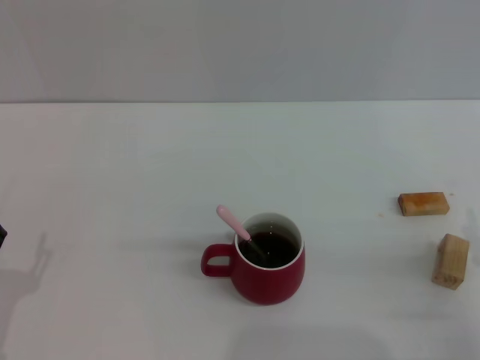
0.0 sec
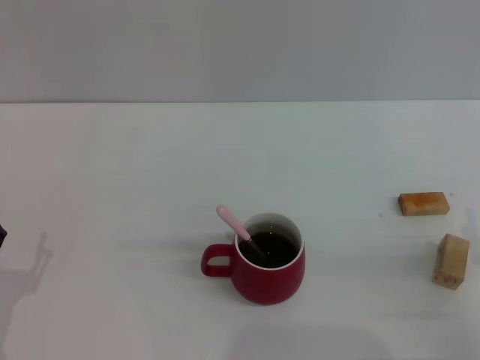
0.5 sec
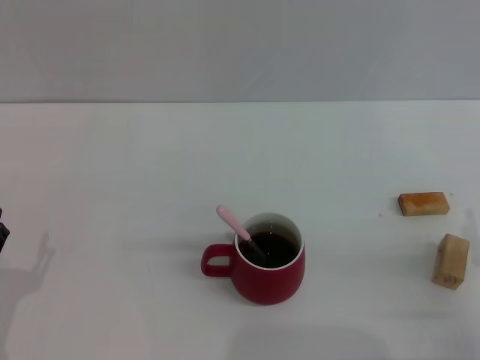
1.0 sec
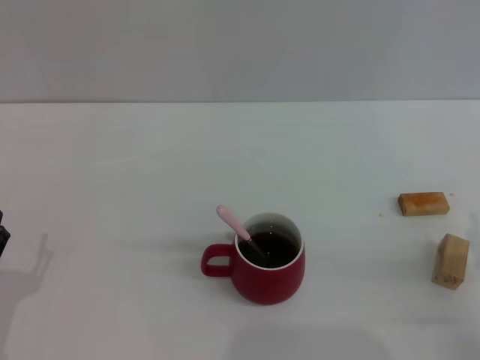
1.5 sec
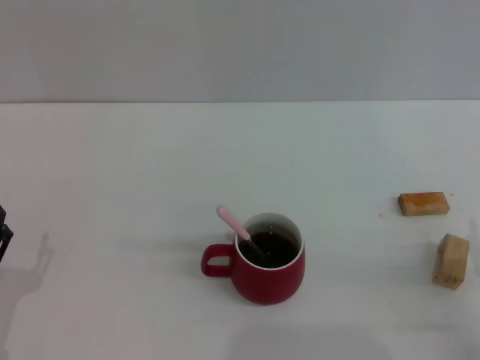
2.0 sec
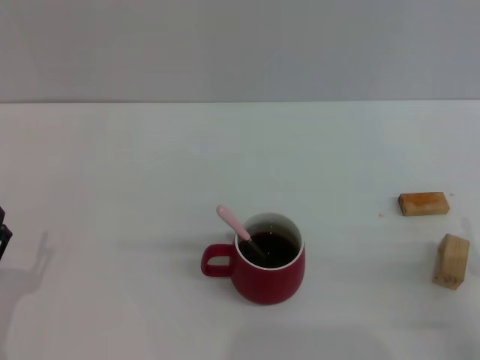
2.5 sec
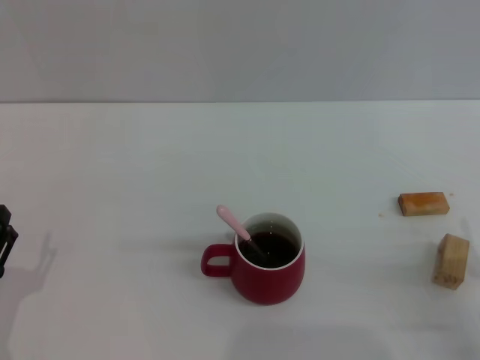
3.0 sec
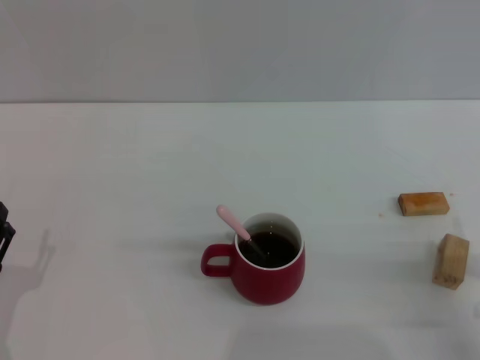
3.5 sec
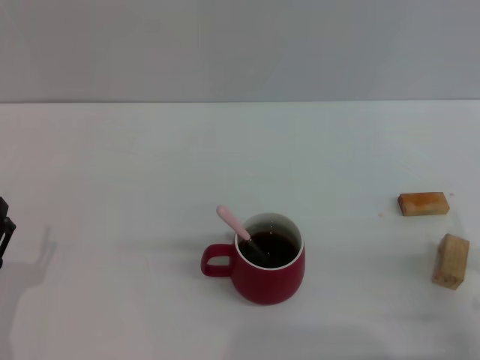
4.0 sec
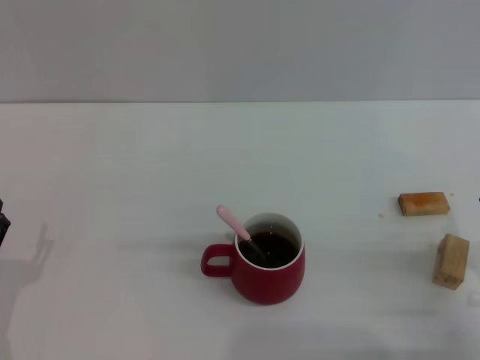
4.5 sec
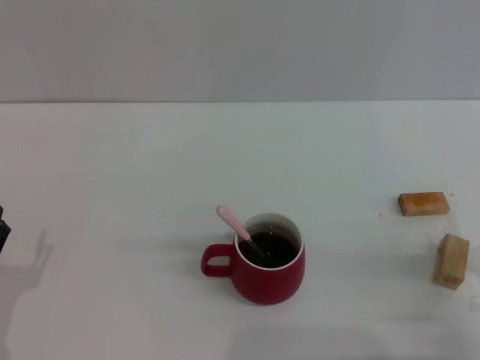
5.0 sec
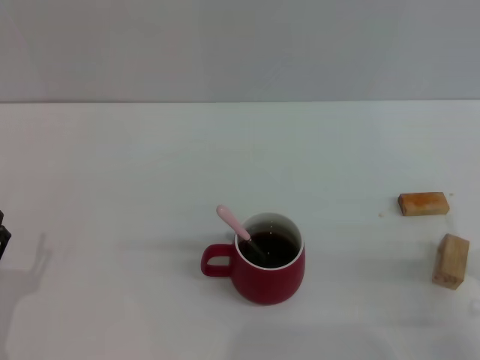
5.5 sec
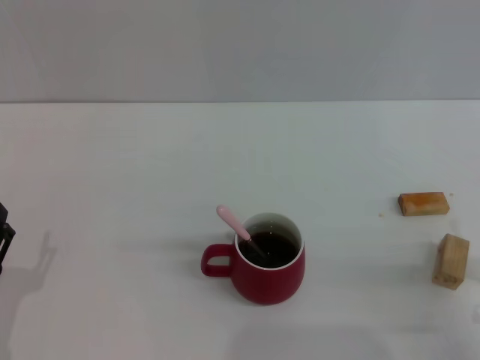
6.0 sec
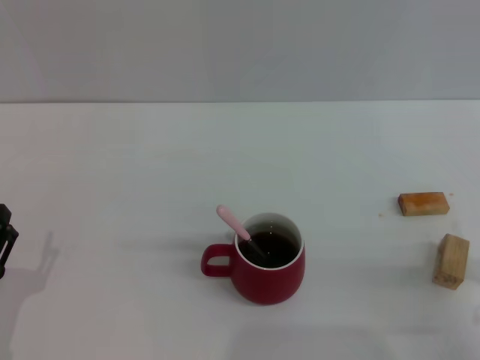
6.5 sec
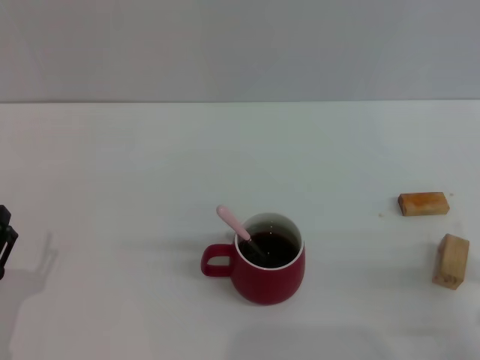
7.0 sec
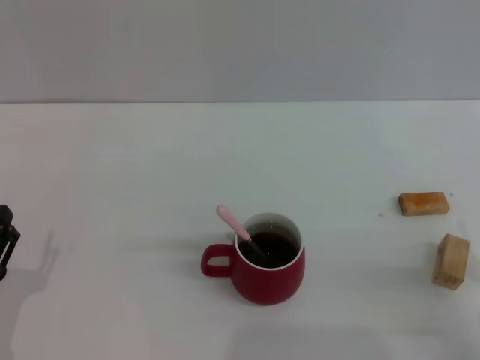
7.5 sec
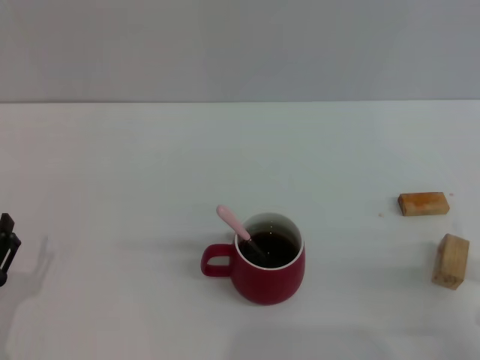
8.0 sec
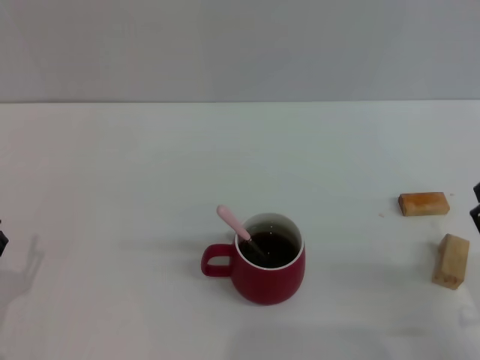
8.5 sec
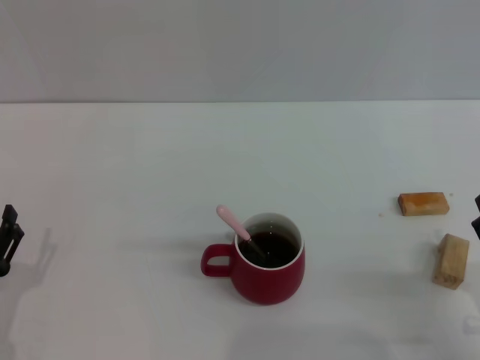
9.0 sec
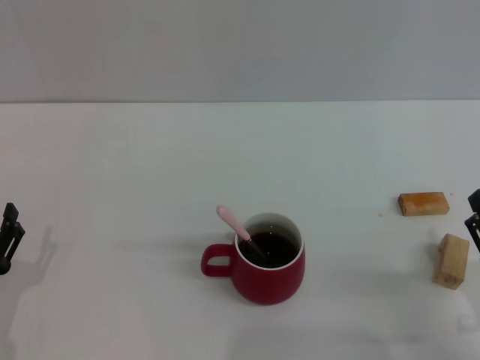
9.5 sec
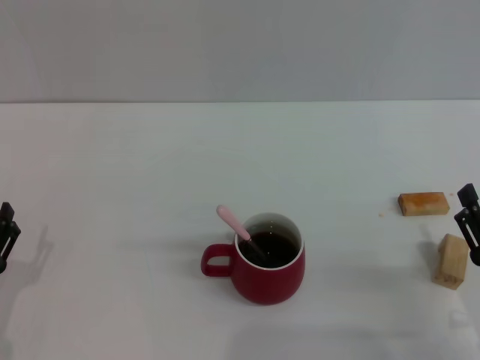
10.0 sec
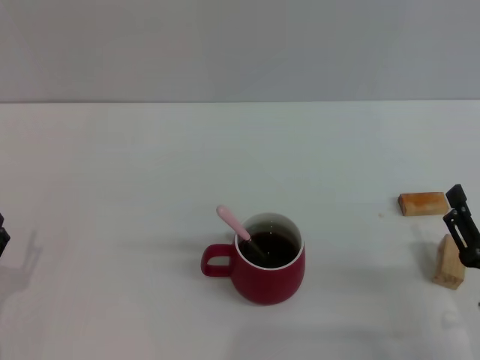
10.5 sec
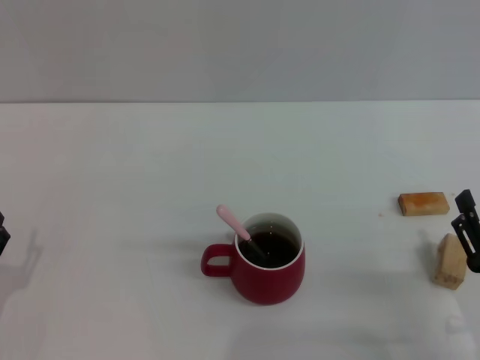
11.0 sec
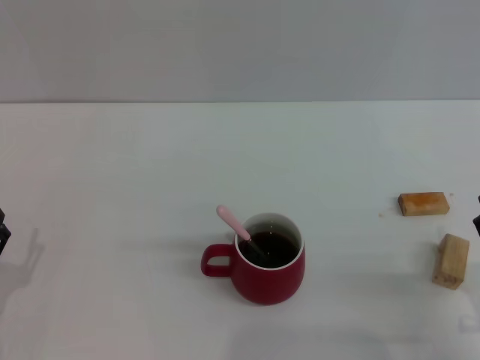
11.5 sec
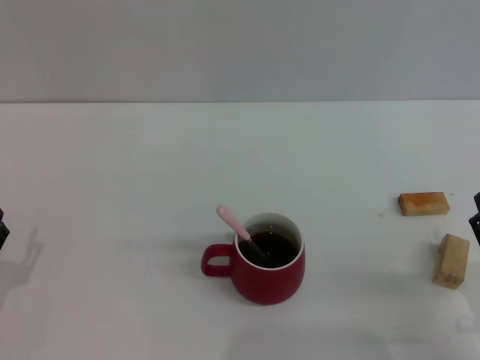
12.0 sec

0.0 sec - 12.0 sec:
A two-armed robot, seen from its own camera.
Task of the whole recording: Move the red cup to the center, lift the pink spoon, stir it three times in the cup, and put the spoon into the cup.
0.0 sec - 2.0 sec: The two grippers keep their place.
6.0 sec - 8.0 sec: Neither gripper changes place.
8.0 sec - 12.0 sec: The grippers move only a little.

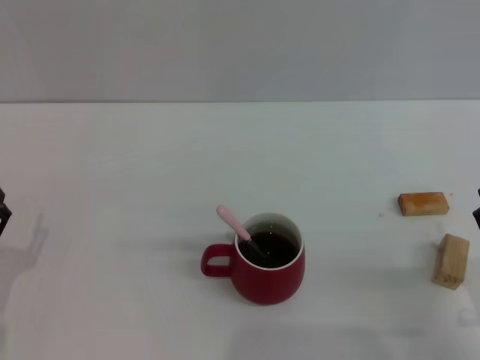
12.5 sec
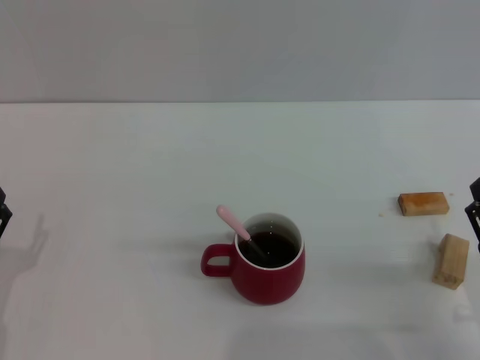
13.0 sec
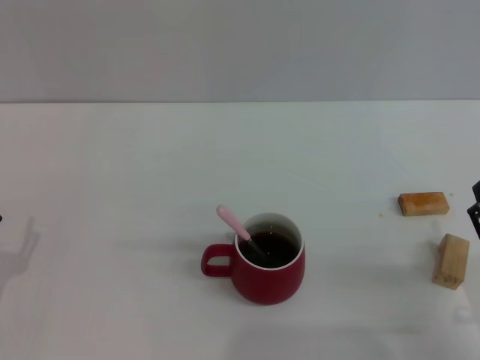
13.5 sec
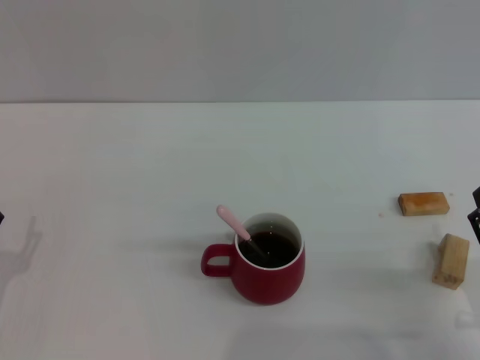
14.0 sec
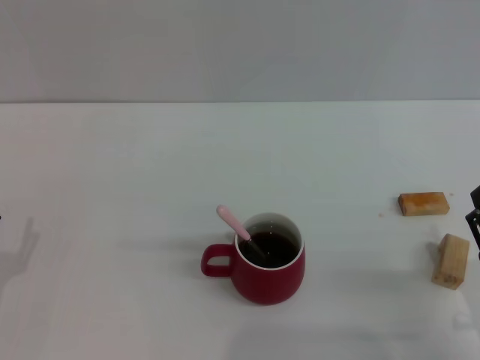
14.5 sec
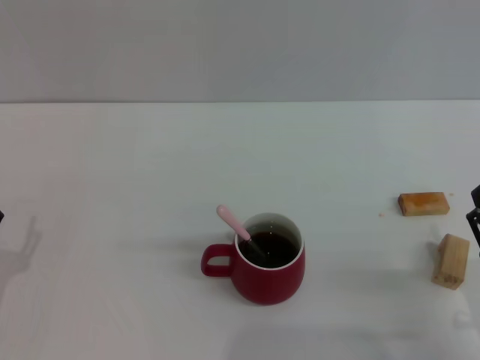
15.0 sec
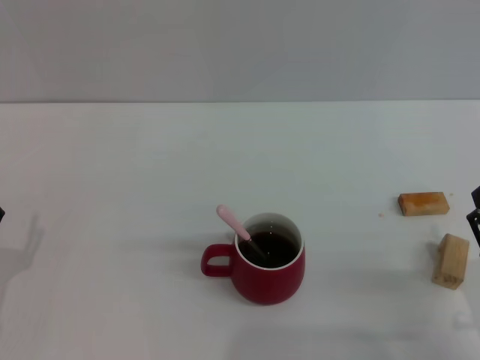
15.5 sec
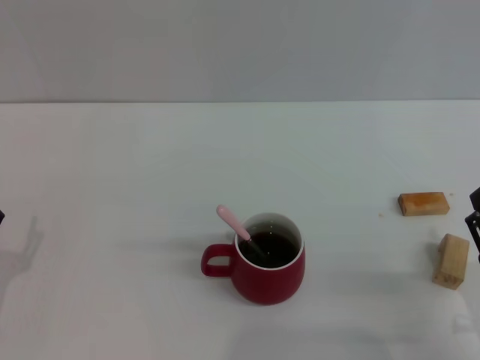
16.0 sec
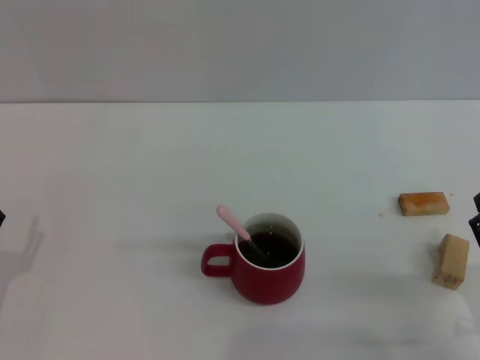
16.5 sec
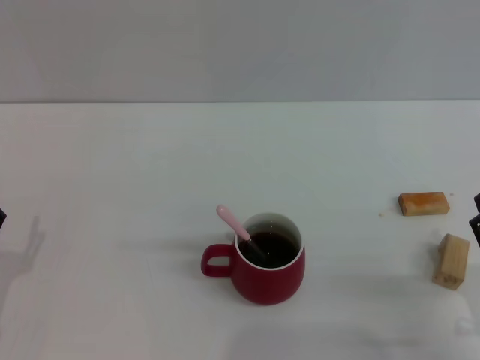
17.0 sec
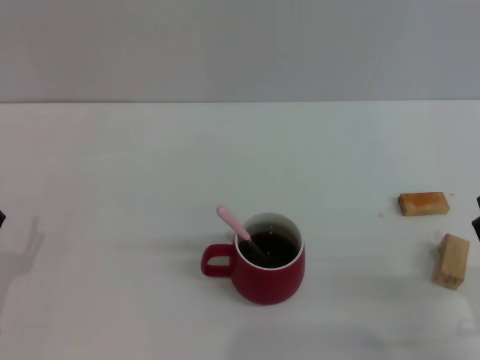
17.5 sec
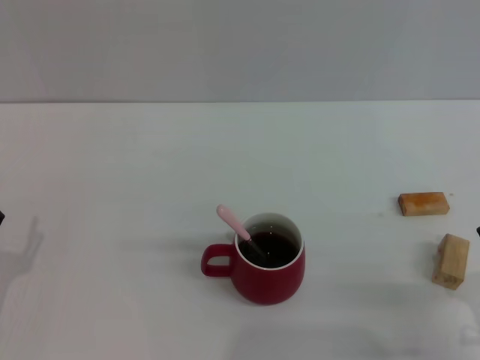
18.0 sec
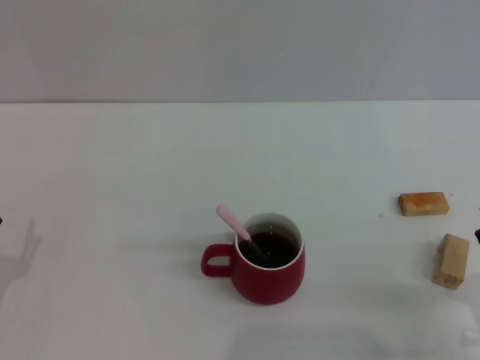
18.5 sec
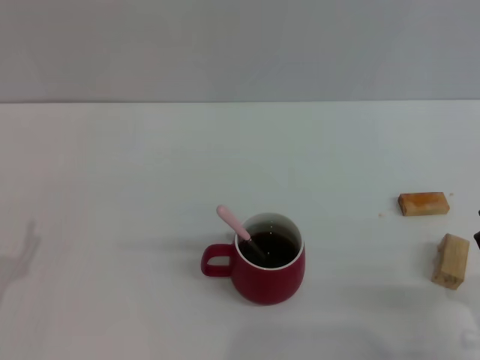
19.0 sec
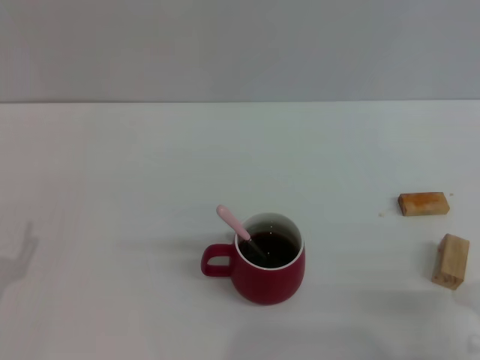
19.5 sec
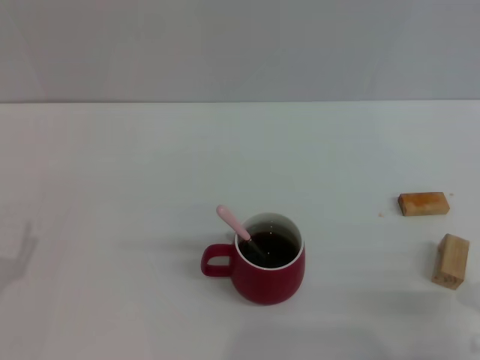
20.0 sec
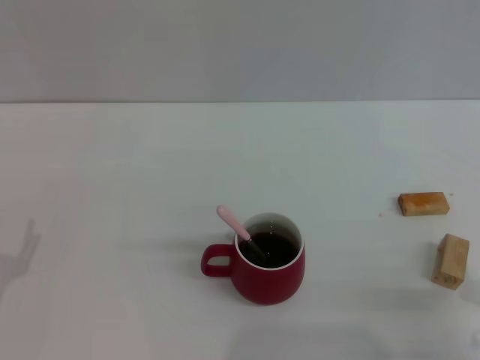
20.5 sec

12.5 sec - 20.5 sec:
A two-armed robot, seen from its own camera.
Task of the whole recording: Move the red cup to the center, lift the pink spoon, stir it three times in the cup, and put the spoon into the cup.
12.5 sec - 16.5 sec: The two grippers keep their place.
16.5 sec - 18.5 sec: Both grippers stay about where they are.
18.5 sec - 20.5 sec: Neither gripper changes place.

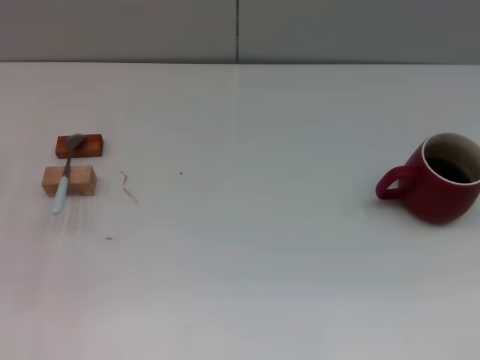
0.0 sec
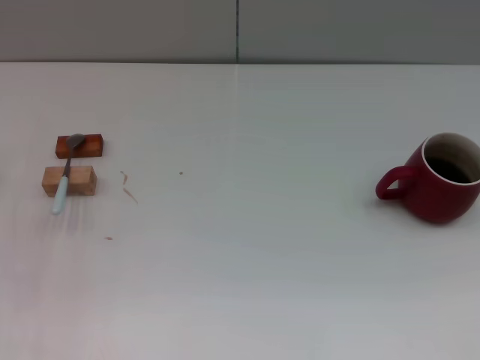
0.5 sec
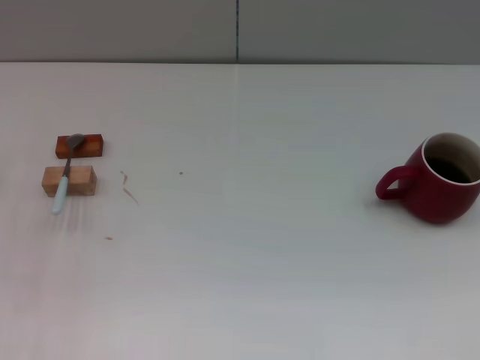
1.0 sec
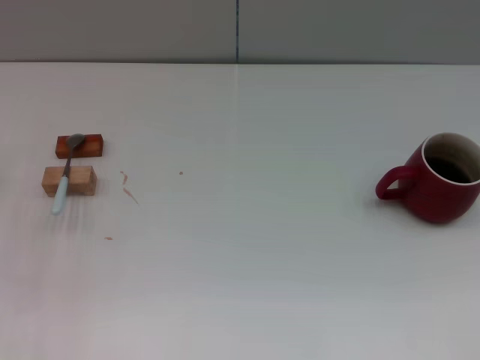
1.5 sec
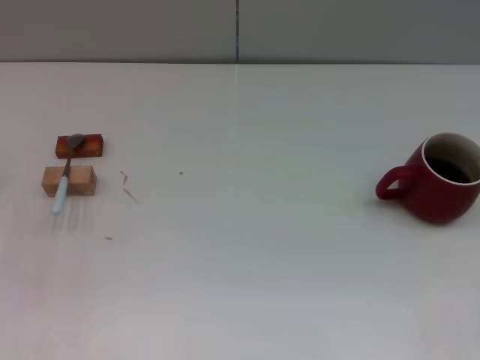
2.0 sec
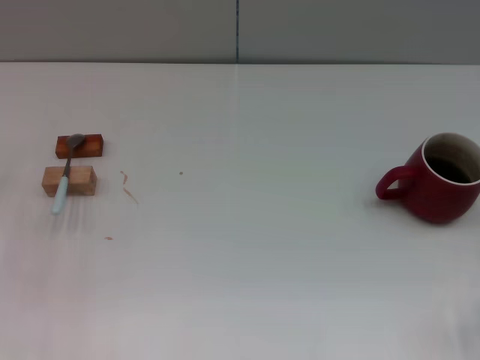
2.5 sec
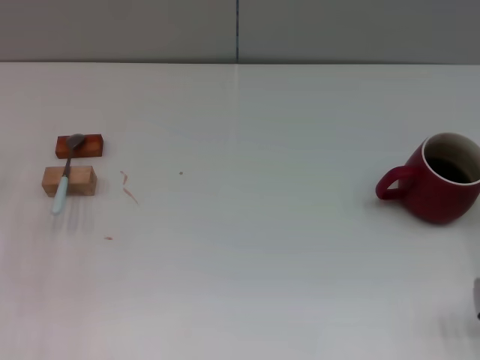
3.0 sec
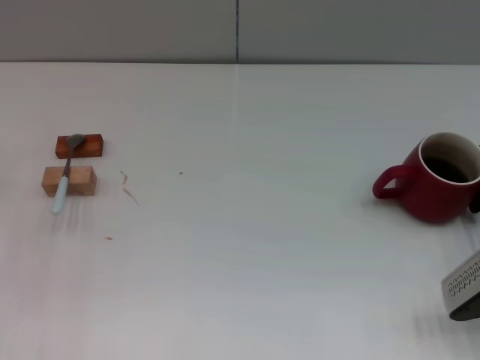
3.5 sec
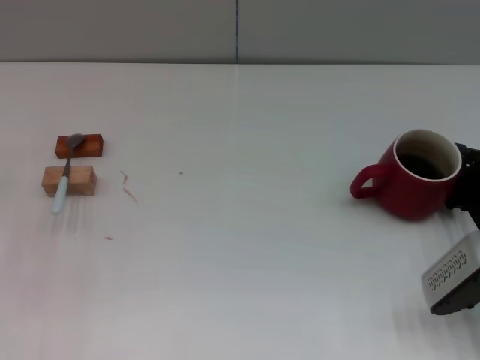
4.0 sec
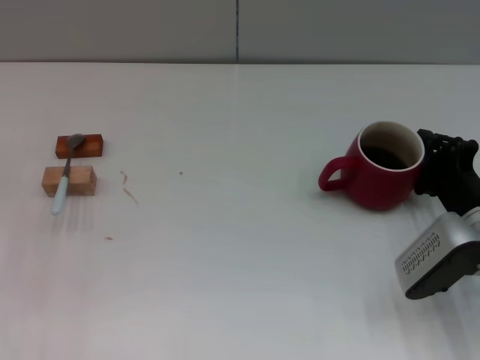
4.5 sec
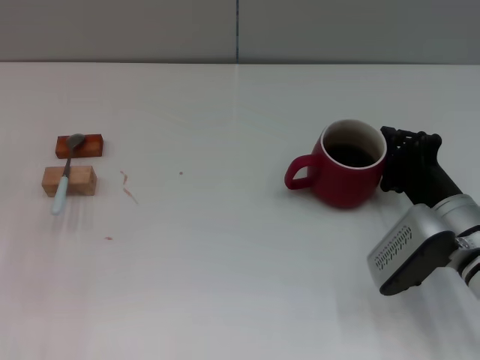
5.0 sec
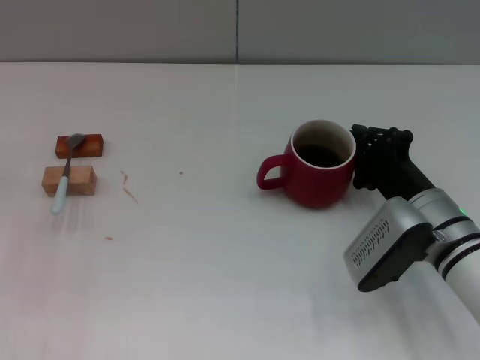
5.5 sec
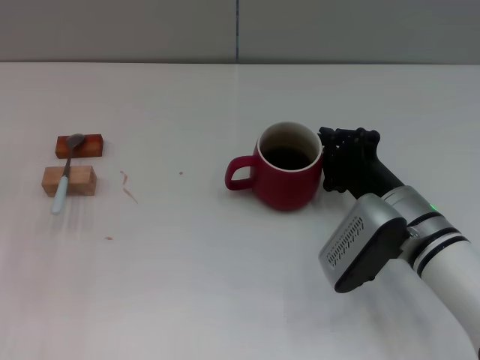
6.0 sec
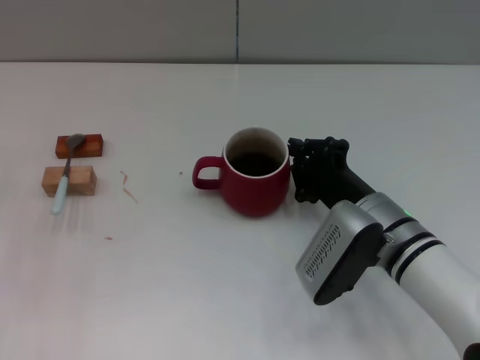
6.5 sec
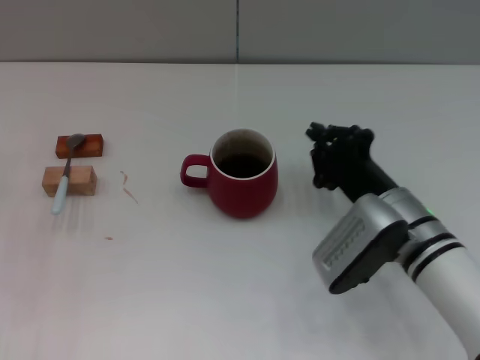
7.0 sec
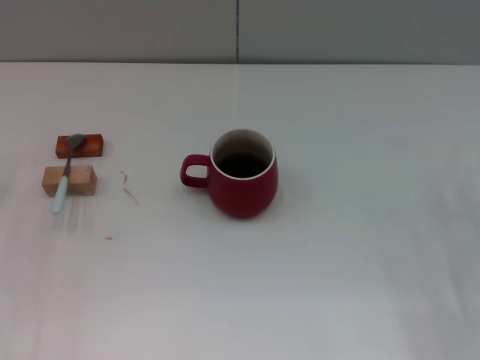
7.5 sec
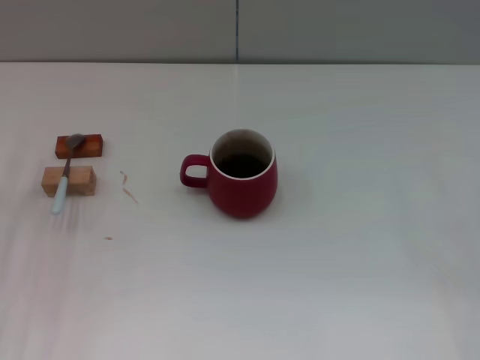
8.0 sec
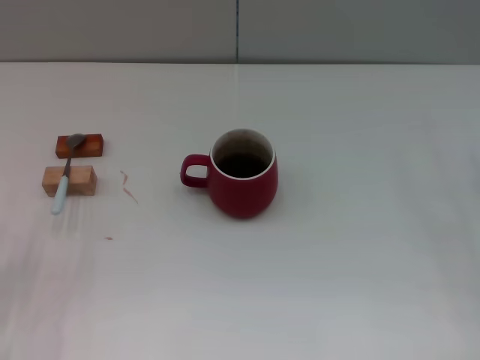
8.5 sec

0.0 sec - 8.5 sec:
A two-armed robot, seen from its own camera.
Task of the whole recording: Move the red cup to the center, lift the blue spoon, stir it three times in the cup, and put the spoon into the cup.
Step, 0.0 sec - 7.0 sec: Move the cup with coffee to the center of view with the right gripper.
2.0 sec - 4.0 sec: The right gripper heads to the left, covering approximately 10 cm.
4.0 sec - 6.5 sec: The right gripper is displaced to the left by roughly 15 cm.
6.5 sec - 8.5 sec: The right gripper is displaced to the right by approximately 20 cm, and opens its fingers, while the left gripper moves backward, to the right and downward, some 15 cm.
